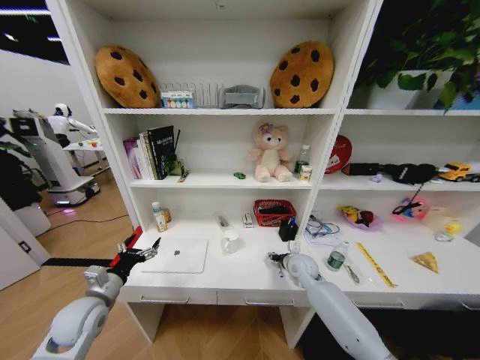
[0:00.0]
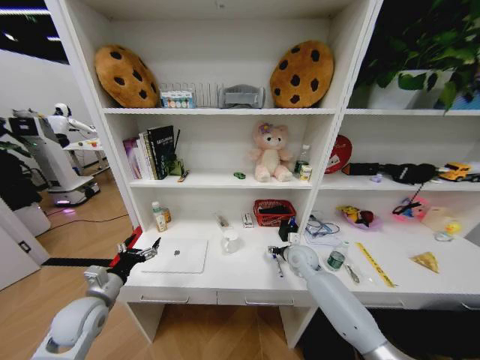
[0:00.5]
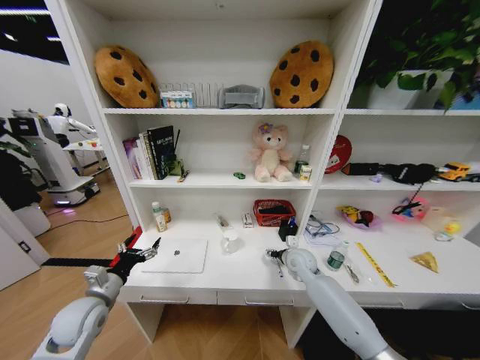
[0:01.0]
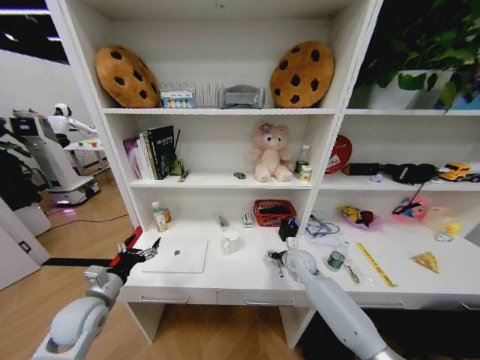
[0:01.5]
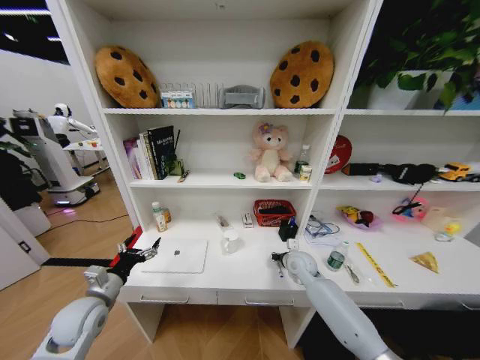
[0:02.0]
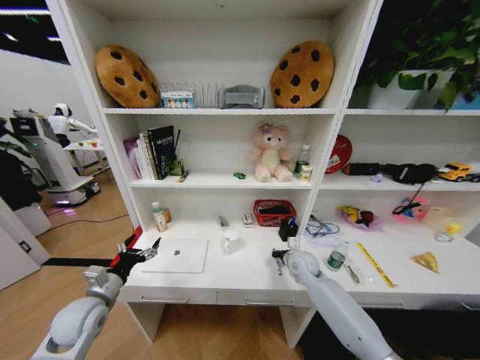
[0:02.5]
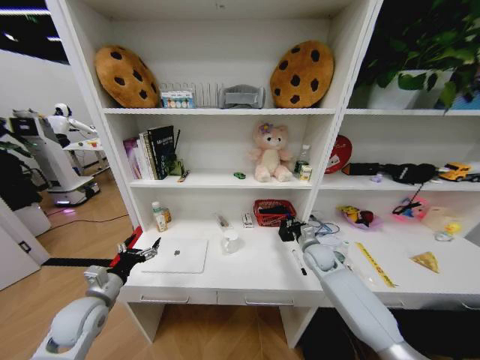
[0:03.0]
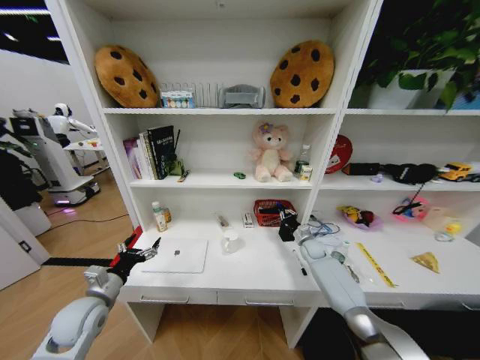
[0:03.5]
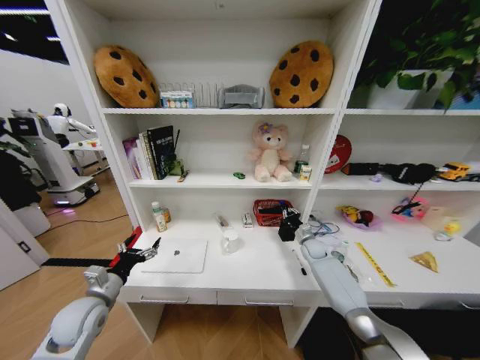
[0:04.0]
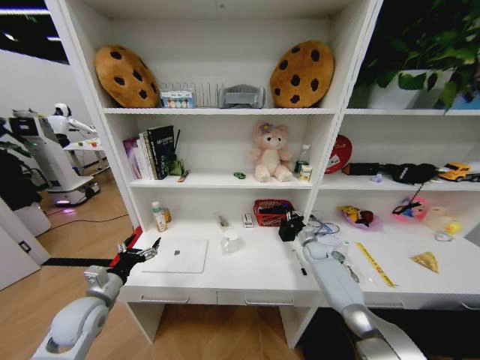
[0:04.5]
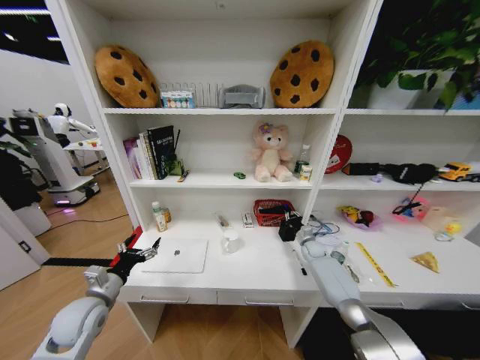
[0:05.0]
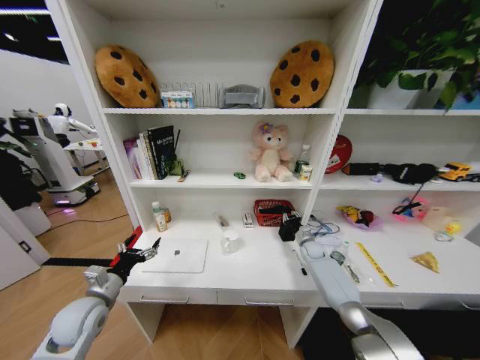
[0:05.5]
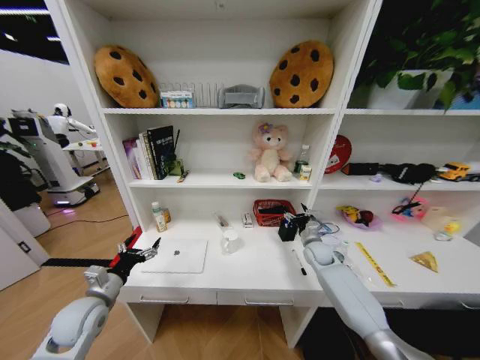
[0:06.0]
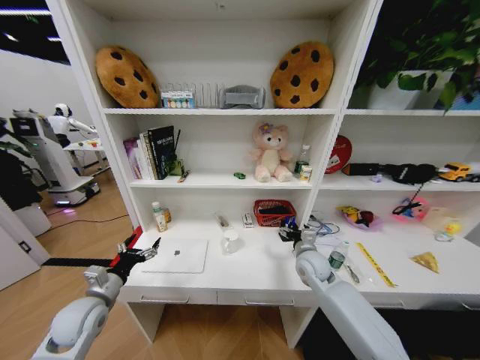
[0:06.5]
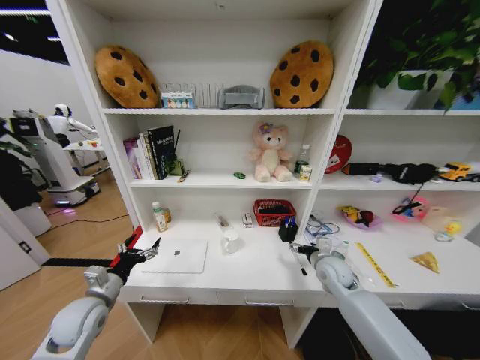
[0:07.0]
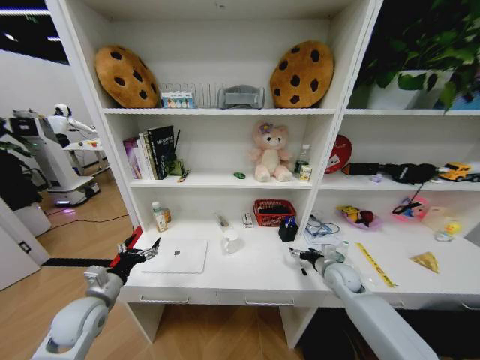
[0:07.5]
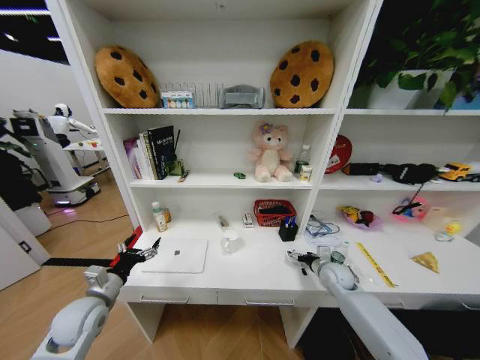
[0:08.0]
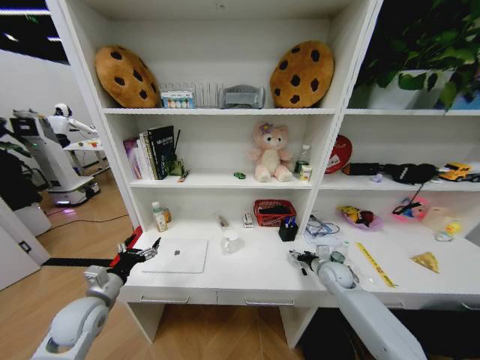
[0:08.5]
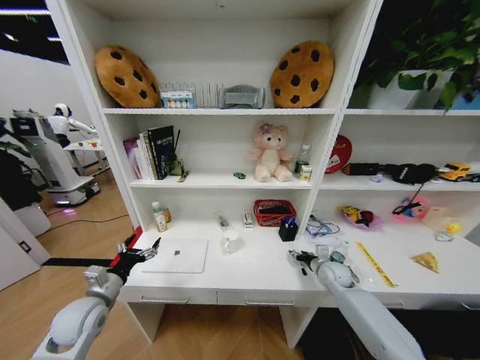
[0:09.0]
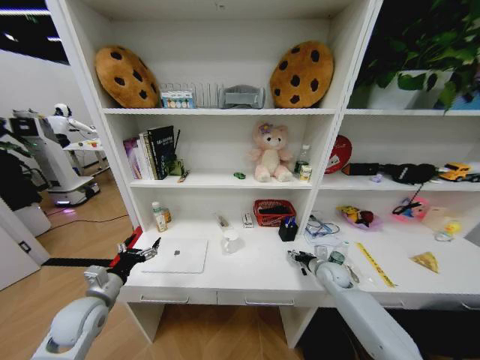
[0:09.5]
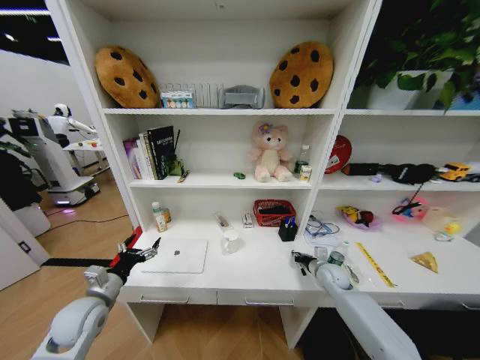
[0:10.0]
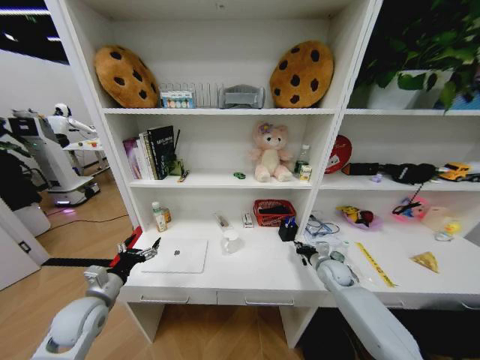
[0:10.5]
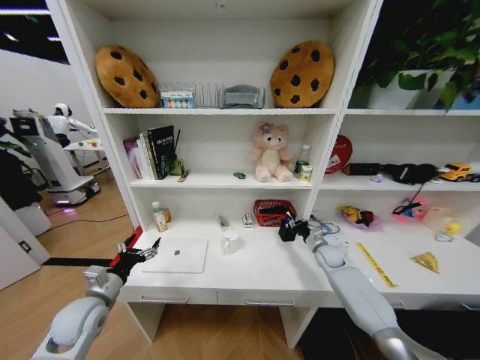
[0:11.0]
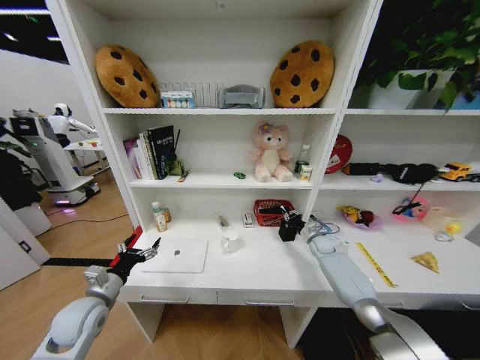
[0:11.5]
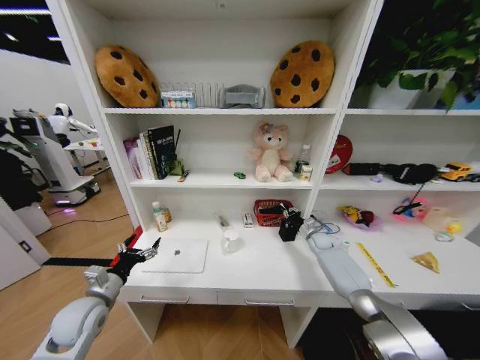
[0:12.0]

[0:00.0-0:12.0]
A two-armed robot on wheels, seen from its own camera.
Task of the whole recording: Organize the objects on the table.
0:02.0 to 0:04.0: The right gripper travels to the right and forward by approximately 15 cm.
0:04.0 to 0:06.0: The right gripper opens.
0:06.0 to 0:08.0: The right gripper is displaced backward by approximately 10 cm.
0:08.0 to 0:10.0: The right gripper closes its fingers.
0:10.0 to 0:12.0: The right gripper travels forward by some 15 cm.

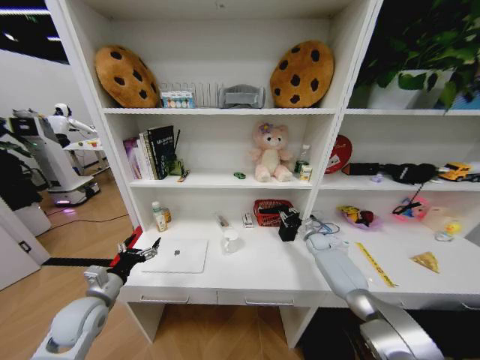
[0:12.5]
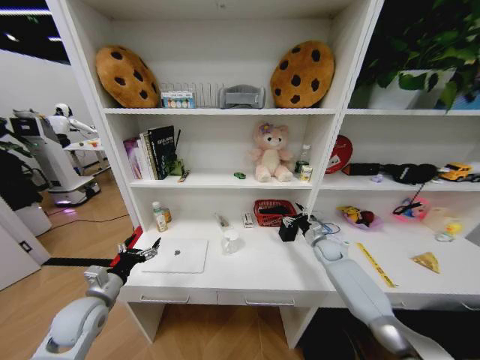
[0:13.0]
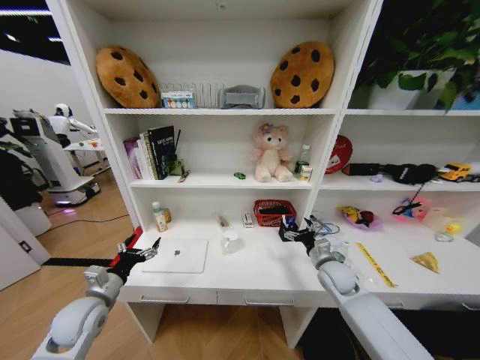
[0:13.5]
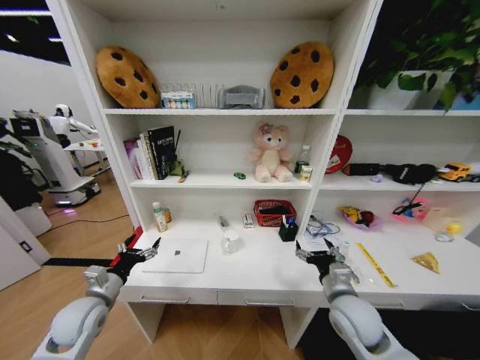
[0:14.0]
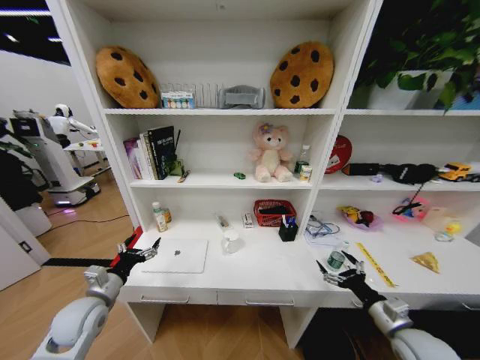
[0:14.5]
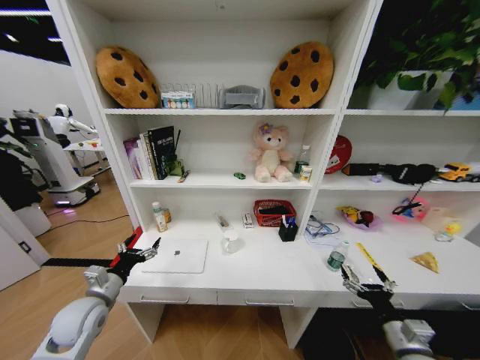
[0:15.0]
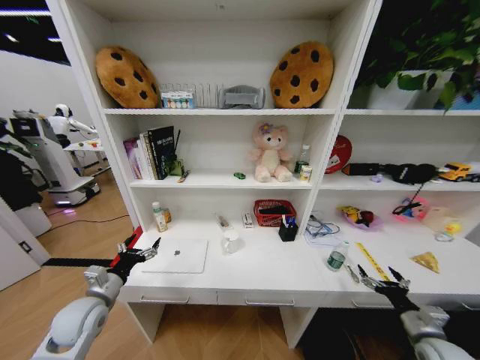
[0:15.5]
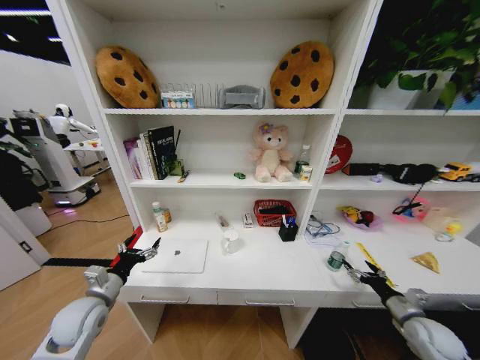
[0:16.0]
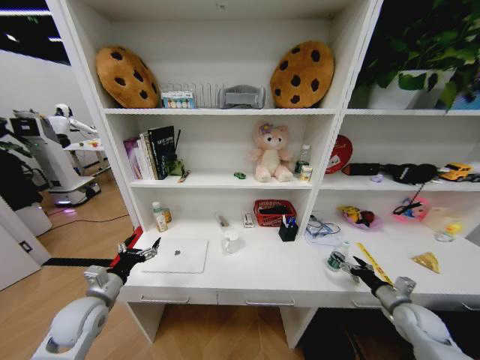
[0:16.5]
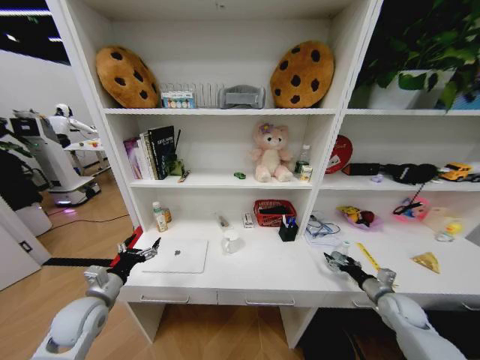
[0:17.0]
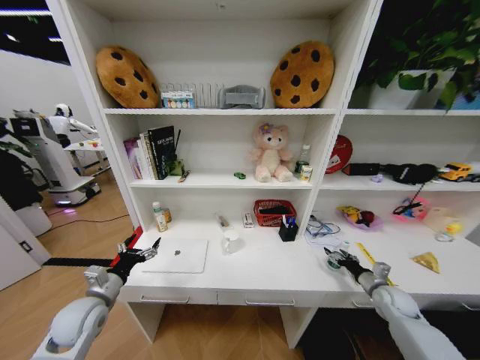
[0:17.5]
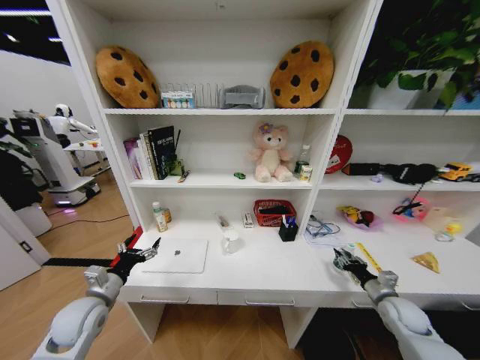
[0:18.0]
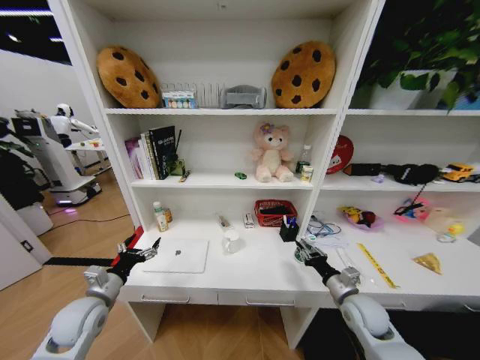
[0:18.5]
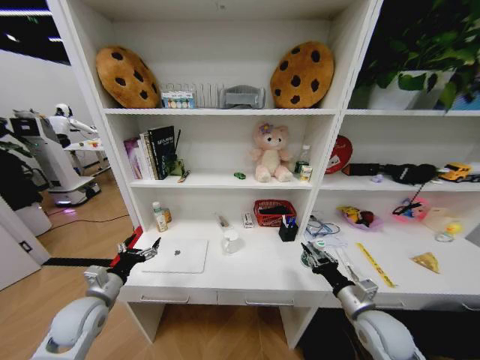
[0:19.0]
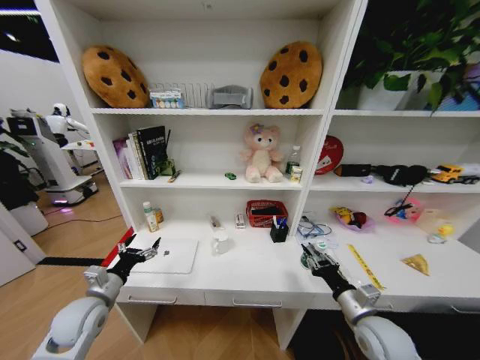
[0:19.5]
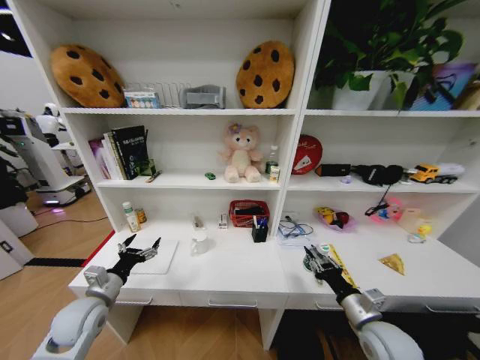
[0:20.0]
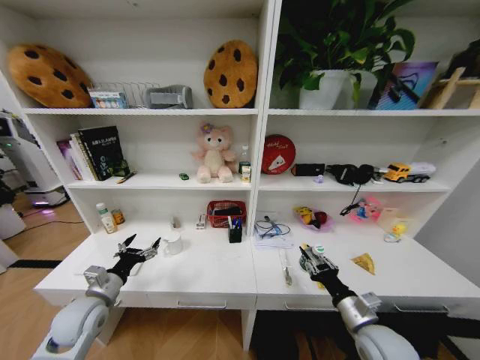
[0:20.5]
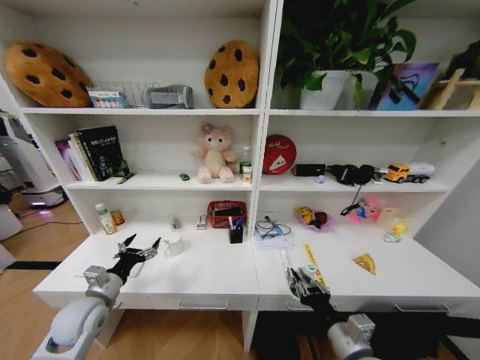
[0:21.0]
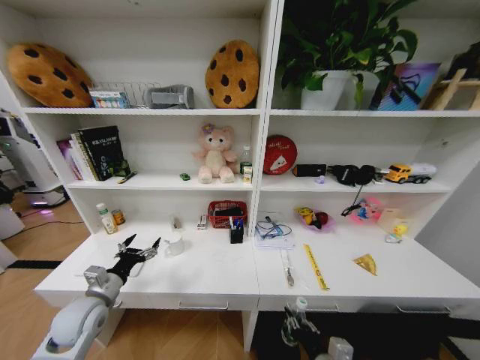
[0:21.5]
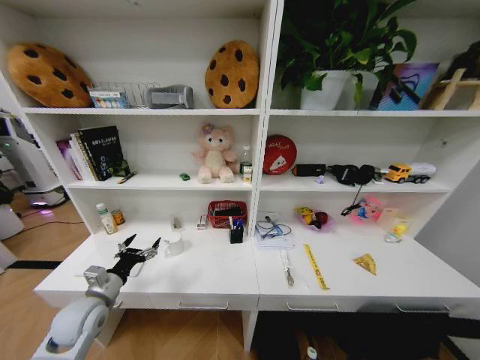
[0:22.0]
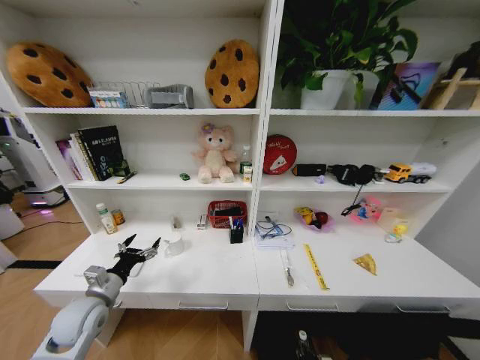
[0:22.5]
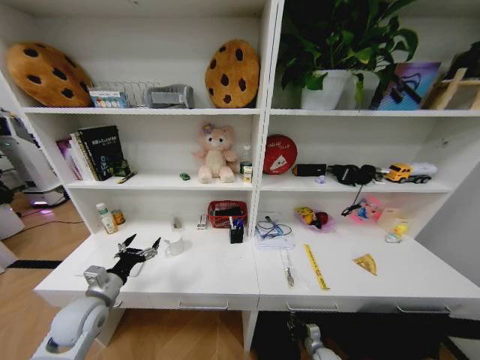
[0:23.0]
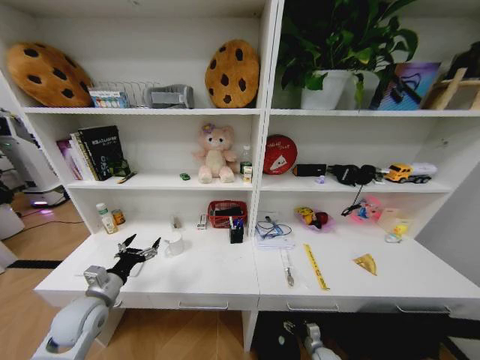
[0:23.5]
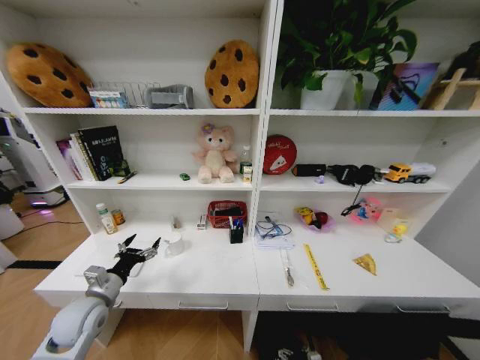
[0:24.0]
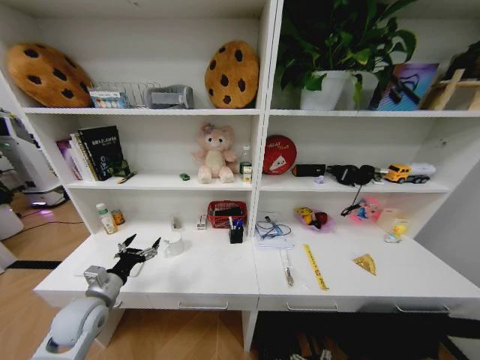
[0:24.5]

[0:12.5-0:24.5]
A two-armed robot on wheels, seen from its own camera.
Task of the whole recording: Organize the objects on the table.
0:12.5 to 0:14.5: The right gripper is displaced backward by some 35 cm, and opens up.
0:14.5 to 0:16.5: The right gripper moves to the right, forward and downward, about 15 cm.
0:16.5 to 0:18.5: The right gripper is displaced to the left by some 15 cm, and closes its fingers.
0:18.5 to 0:20.5: The right gripper goes about 10 cm backward.
0:20.5 to 0:22.5: The right gripper heads downward, covering roughly 35 cm.
0:22.5 to 0:24.5: The right gripper heads upward, backward and to the left, covering some 20 cm, and opens up.

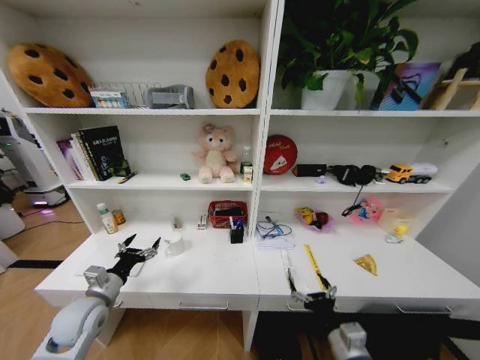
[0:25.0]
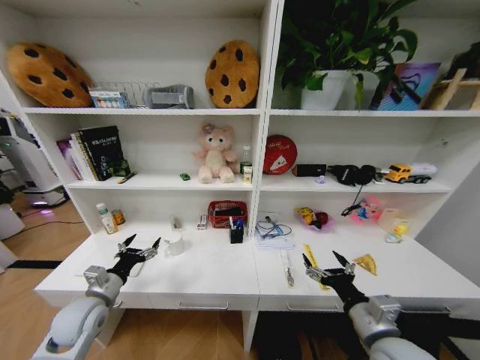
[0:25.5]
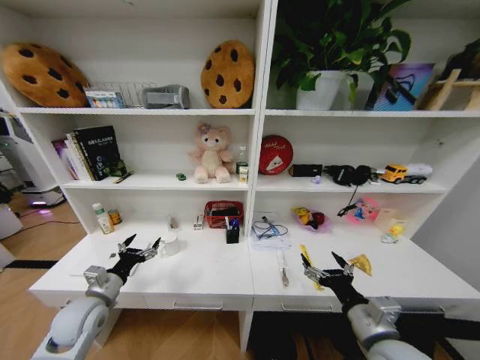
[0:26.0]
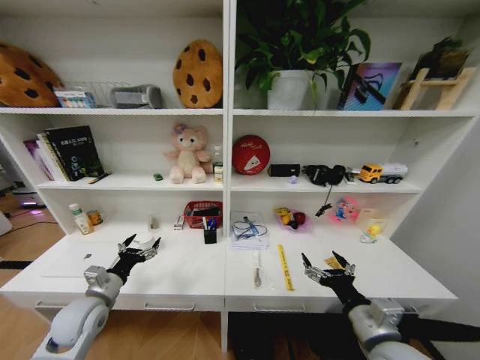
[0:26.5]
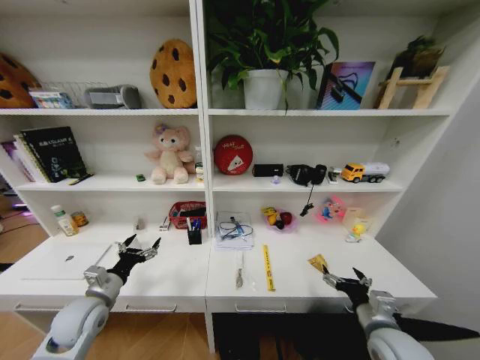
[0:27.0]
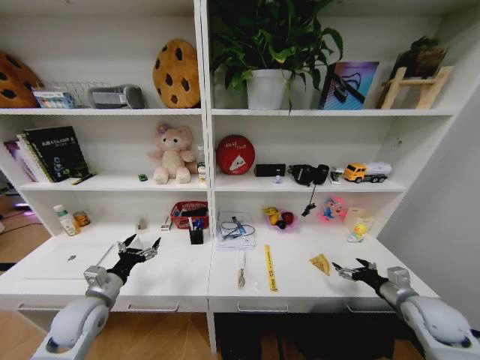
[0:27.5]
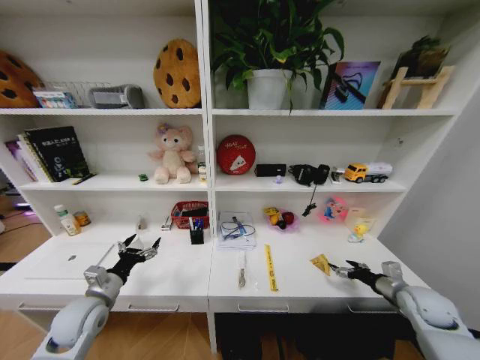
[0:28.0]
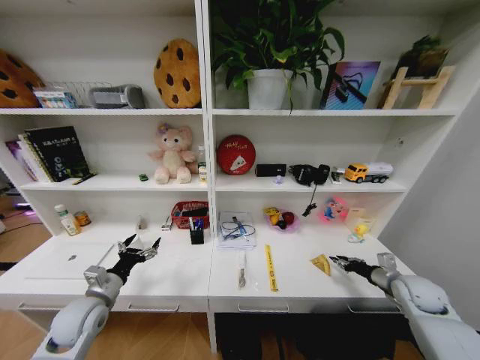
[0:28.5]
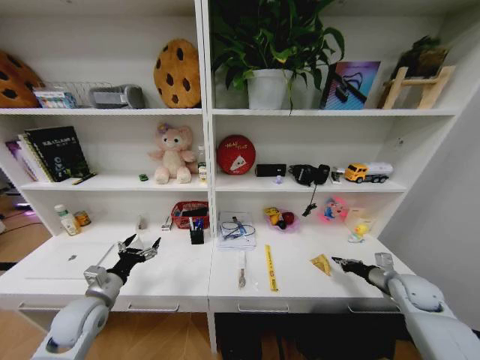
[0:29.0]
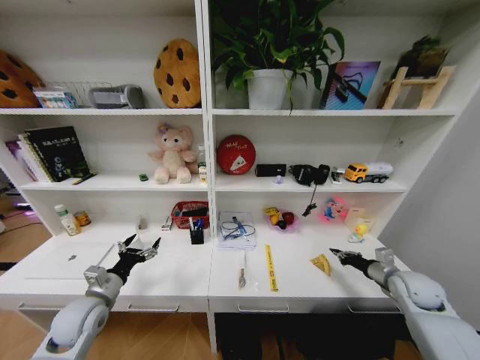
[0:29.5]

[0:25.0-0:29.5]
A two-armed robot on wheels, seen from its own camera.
Task of the whole recording: Organize the objects on the table.
0:25.0 to 0:27.0: The right gripper is displaced to the right by about 10 cm.
0:27.0 to 0:29.5: The right gripper goes roughly 20 cm to the right and forward, and closes up.
